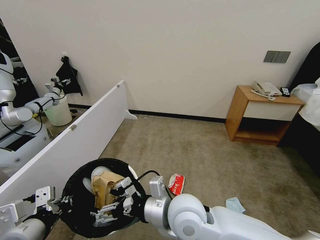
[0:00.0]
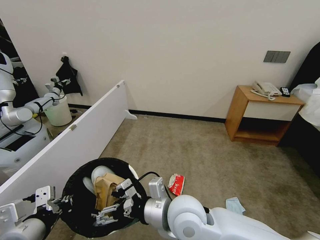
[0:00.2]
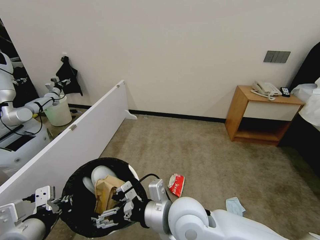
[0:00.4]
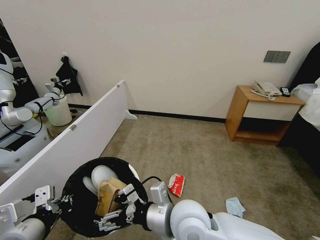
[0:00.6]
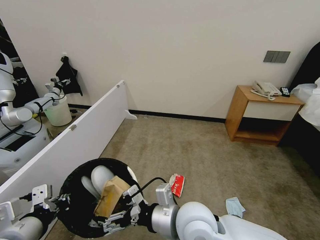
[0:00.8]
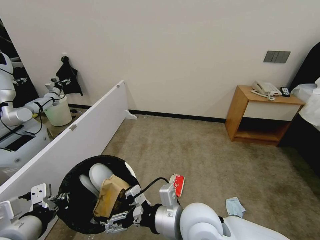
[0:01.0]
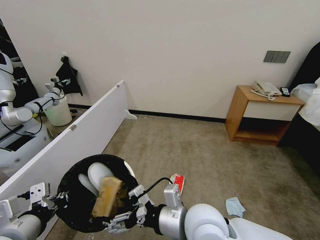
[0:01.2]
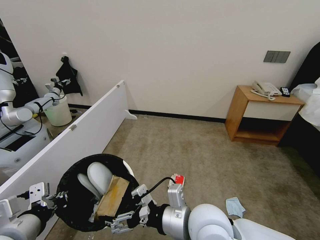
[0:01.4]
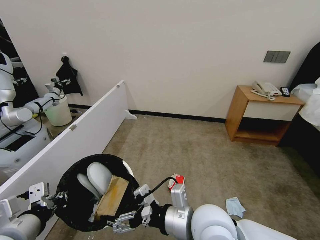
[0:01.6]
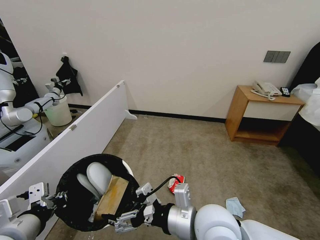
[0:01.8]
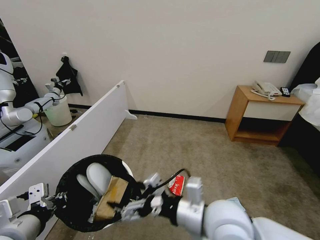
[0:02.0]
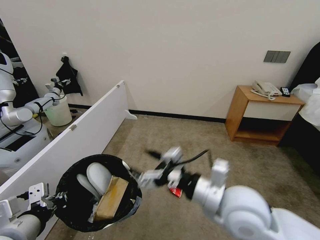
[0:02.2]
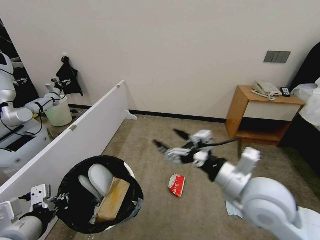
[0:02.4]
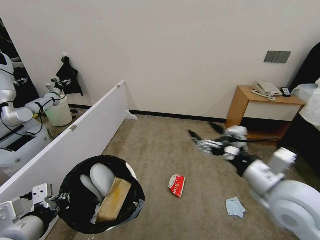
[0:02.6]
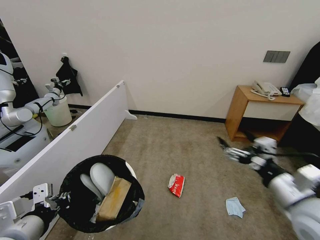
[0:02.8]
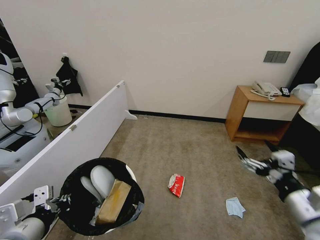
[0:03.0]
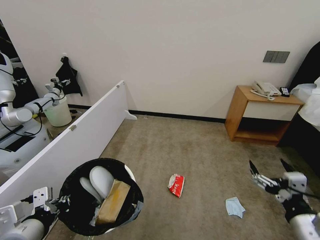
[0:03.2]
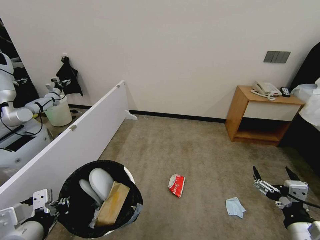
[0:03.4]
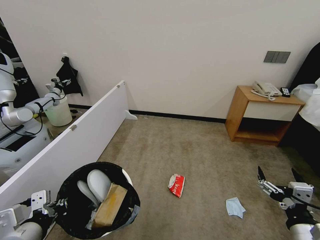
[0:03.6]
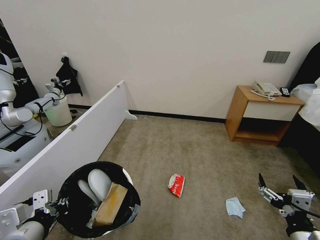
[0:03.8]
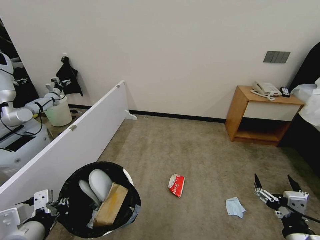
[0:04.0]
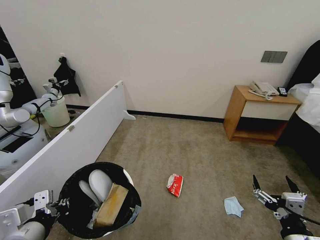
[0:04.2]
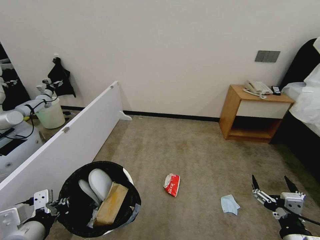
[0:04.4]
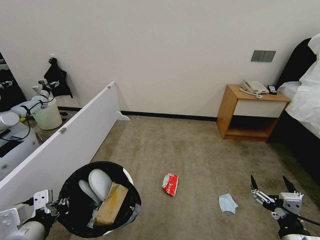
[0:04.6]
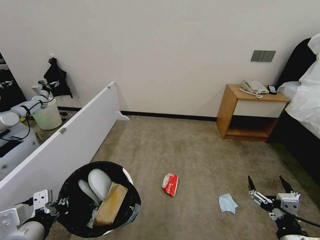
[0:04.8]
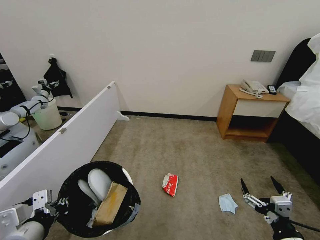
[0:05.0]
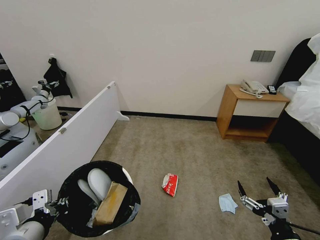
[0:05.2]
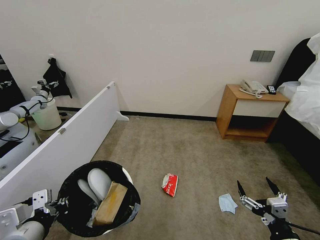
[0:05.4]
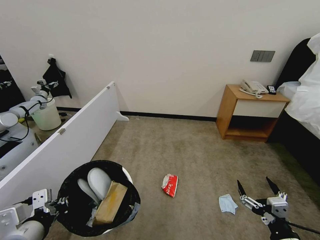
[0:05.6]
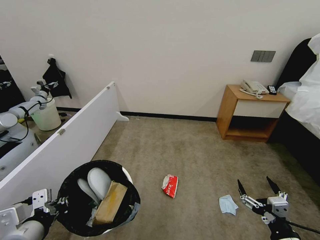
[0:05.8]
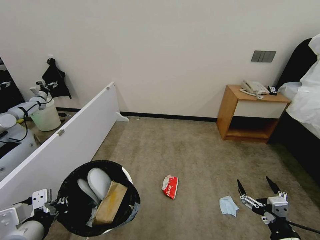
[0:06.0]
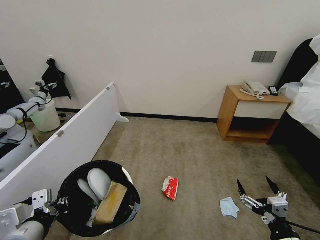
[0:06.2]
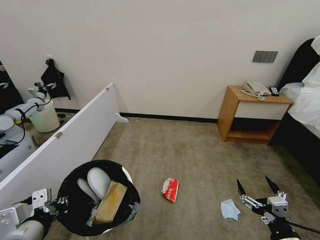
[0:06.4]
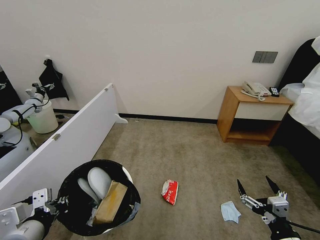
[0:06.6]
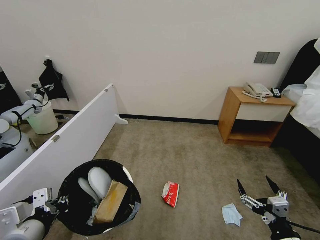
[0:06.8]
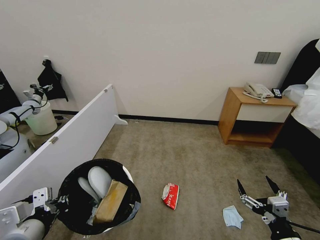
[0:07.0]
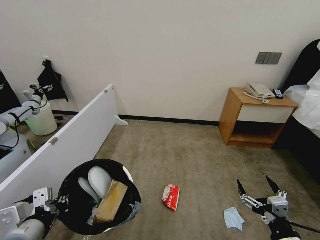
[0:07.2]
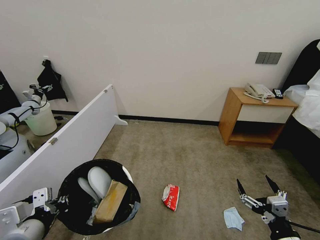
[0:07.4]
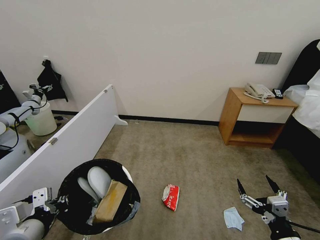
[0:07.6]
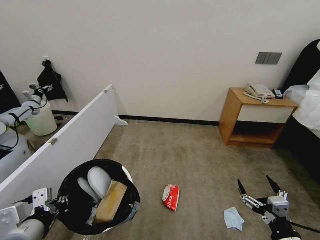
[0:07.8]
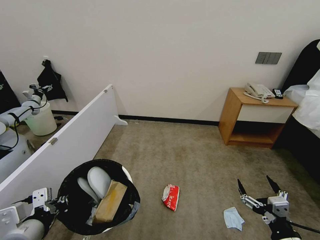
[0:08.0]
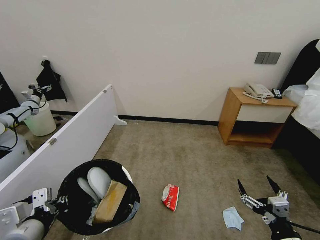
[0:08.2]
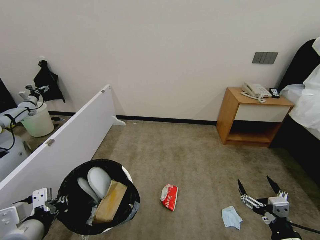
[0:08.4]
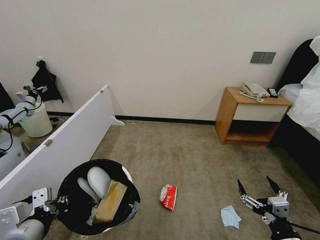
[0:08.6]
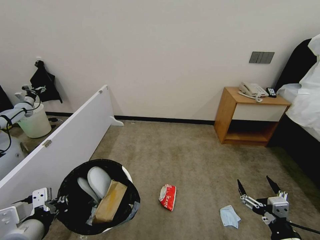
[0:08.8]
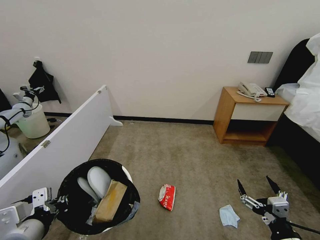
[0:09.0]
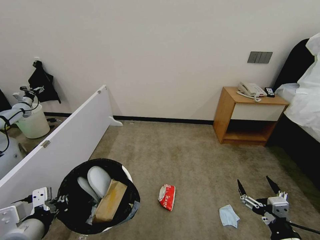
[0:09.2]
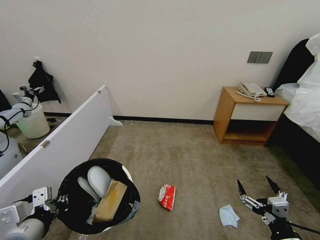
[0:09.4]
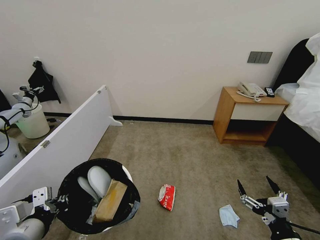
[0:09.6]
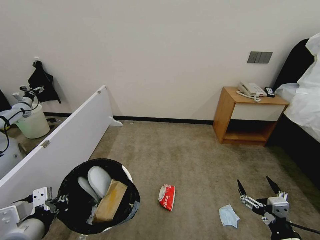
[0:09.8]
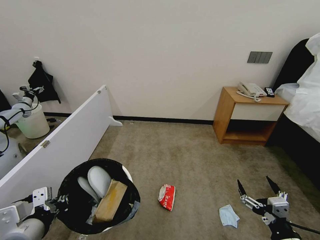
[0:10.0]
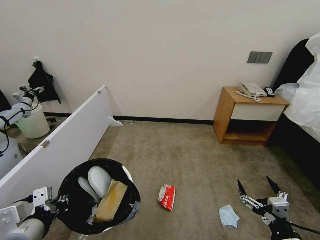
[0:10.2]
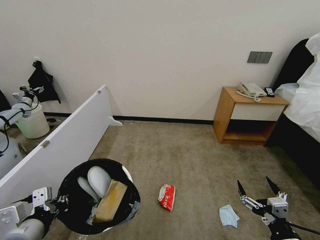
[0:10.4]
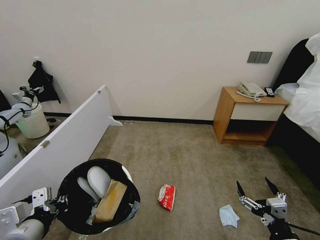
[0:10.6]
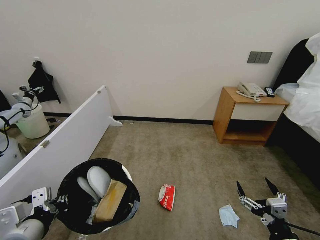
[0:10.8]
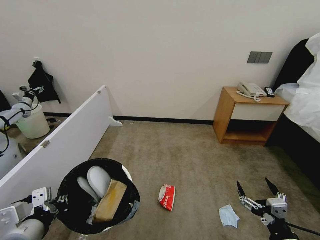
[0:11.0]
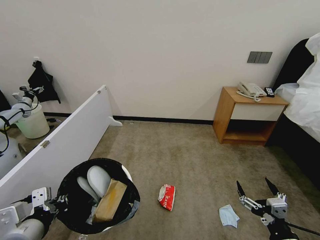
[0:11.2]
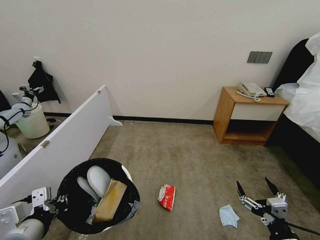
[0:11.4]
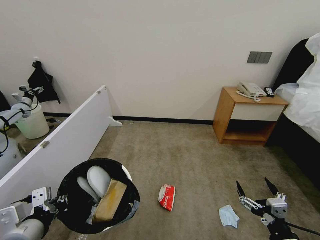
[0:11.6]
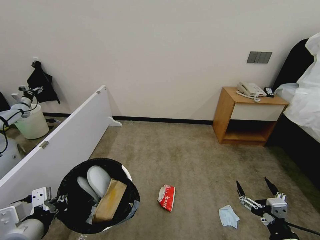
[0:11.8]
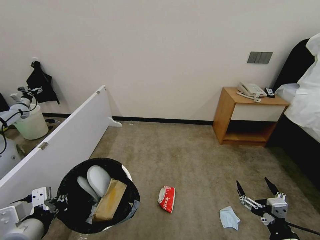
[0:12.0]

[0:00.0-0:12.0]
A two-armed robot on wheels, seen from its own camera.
Task of the whole recording: Pick up the trash bin, then pick up the garbage from the floor and place it into the trash bin.
0:00.0 to 0:01.6: The right gripper changes place by some 5 cm.
0:01.6 to 0:03.0: The right gripper goes some 25 cm to the right.
0:03.0 to 0:04.4: The right gripper goes roughly 10 cm downward and backward.
0:04.4 to 0:06.0: The grippers make only small movements.
0:06.0 to 0:12.0: Both grippers stay about where they are.

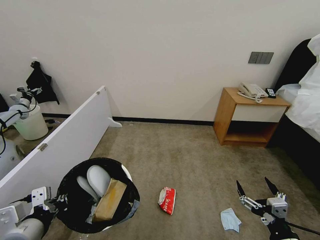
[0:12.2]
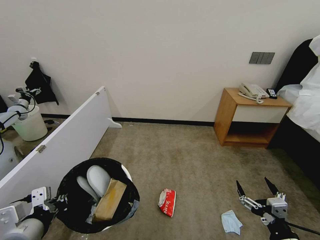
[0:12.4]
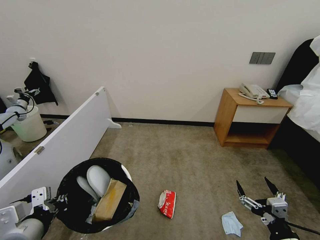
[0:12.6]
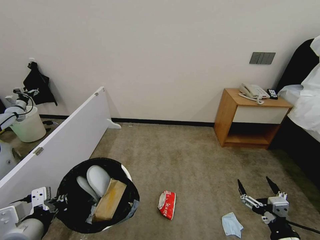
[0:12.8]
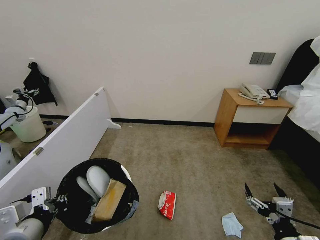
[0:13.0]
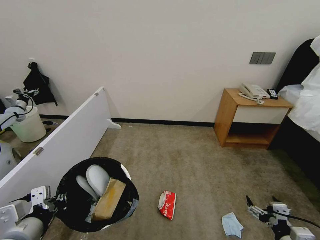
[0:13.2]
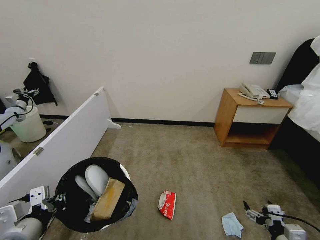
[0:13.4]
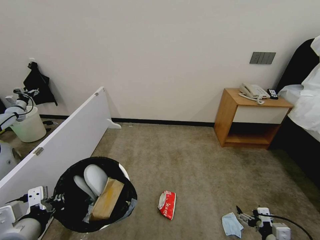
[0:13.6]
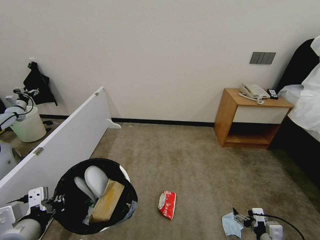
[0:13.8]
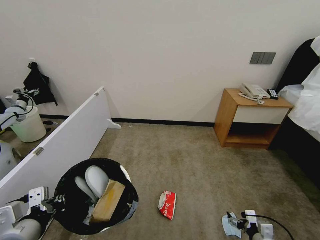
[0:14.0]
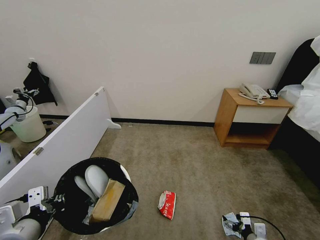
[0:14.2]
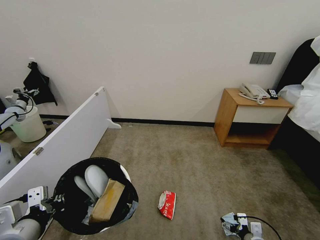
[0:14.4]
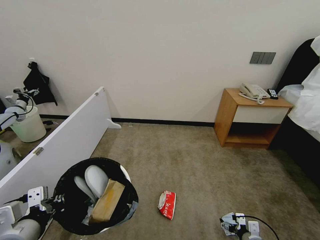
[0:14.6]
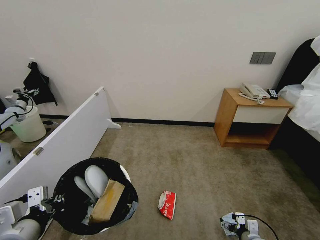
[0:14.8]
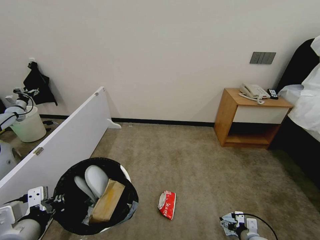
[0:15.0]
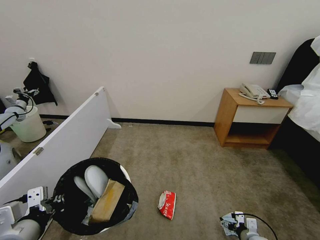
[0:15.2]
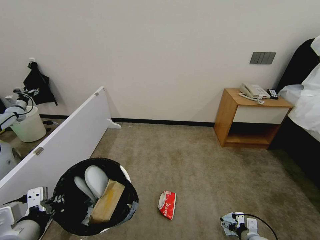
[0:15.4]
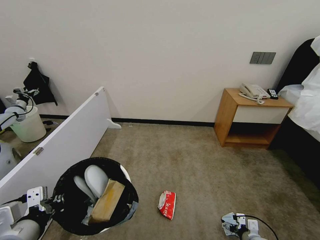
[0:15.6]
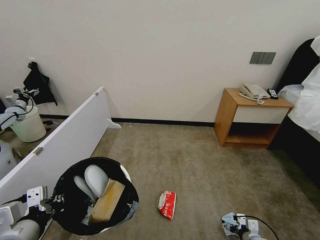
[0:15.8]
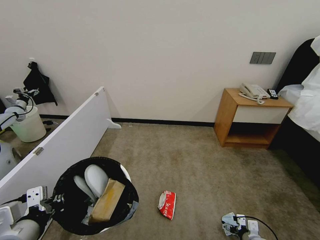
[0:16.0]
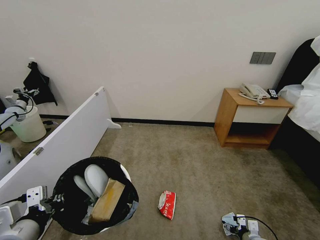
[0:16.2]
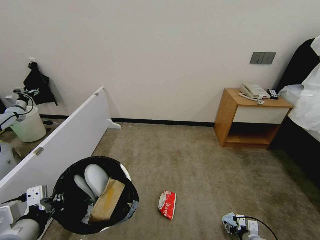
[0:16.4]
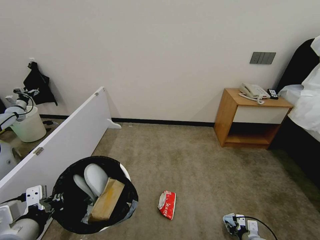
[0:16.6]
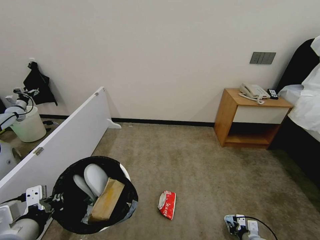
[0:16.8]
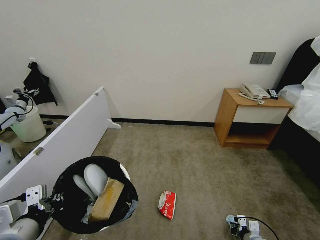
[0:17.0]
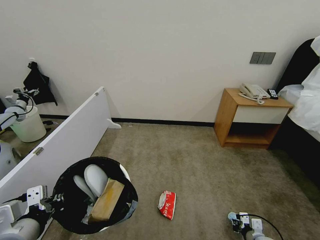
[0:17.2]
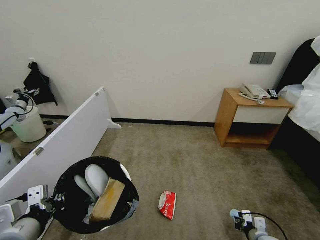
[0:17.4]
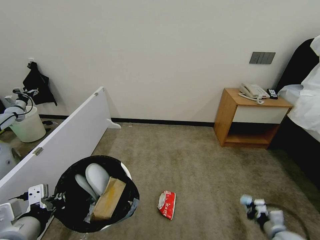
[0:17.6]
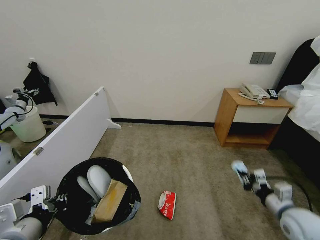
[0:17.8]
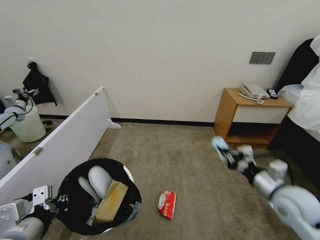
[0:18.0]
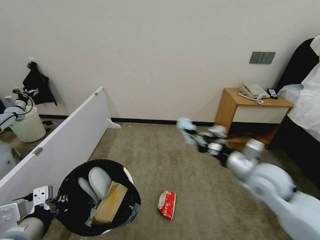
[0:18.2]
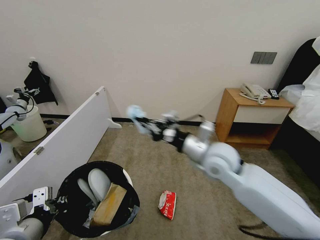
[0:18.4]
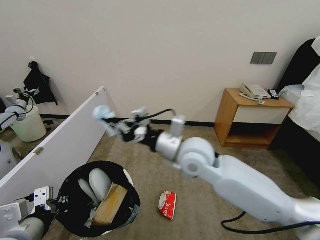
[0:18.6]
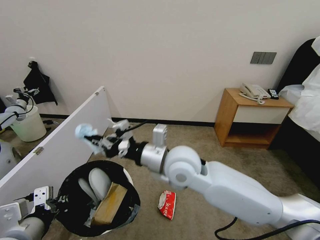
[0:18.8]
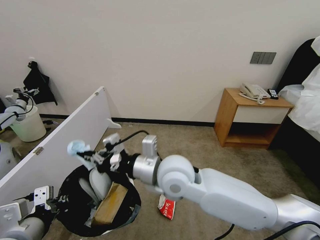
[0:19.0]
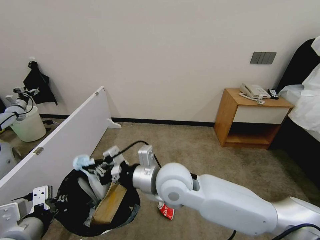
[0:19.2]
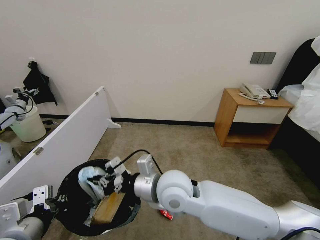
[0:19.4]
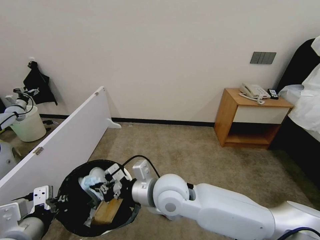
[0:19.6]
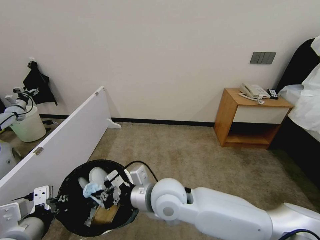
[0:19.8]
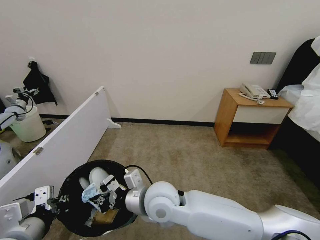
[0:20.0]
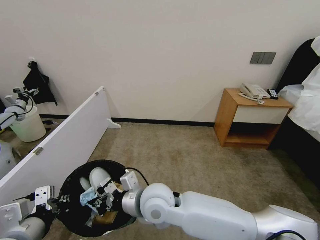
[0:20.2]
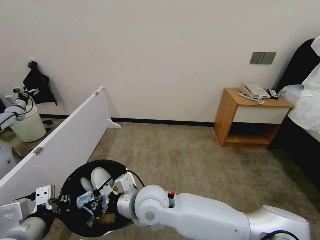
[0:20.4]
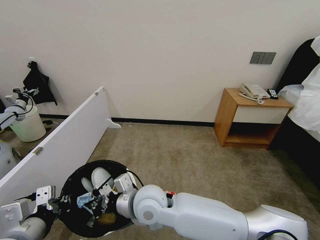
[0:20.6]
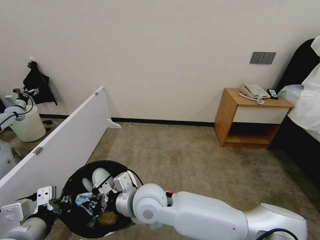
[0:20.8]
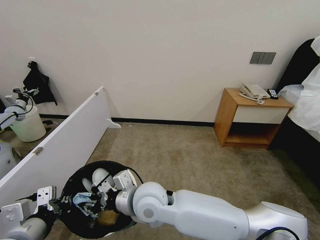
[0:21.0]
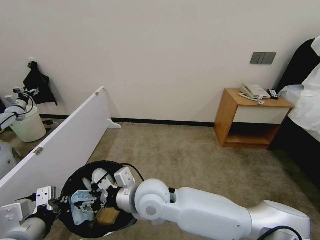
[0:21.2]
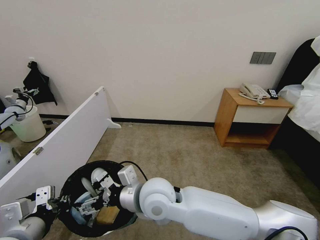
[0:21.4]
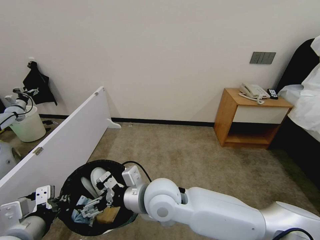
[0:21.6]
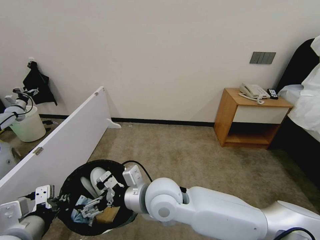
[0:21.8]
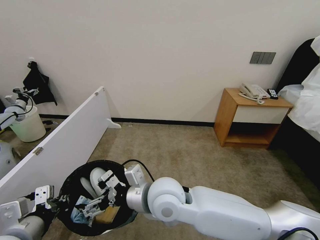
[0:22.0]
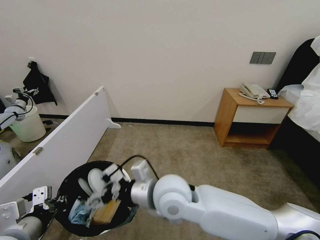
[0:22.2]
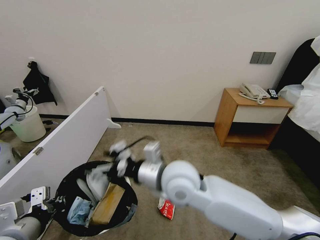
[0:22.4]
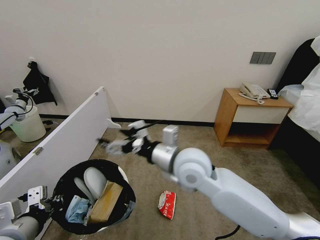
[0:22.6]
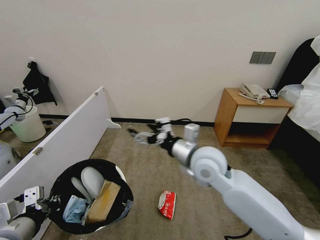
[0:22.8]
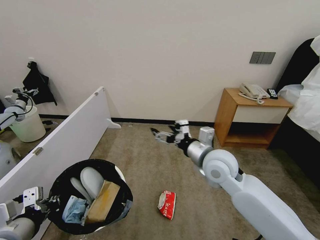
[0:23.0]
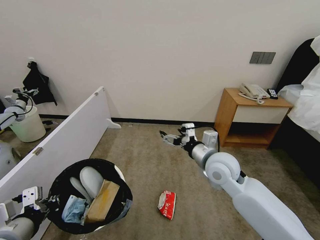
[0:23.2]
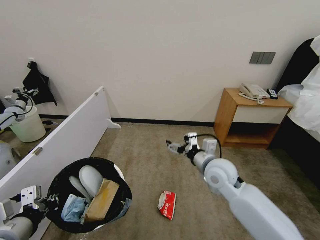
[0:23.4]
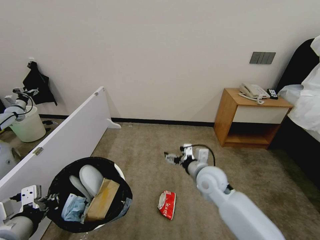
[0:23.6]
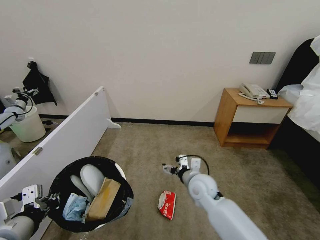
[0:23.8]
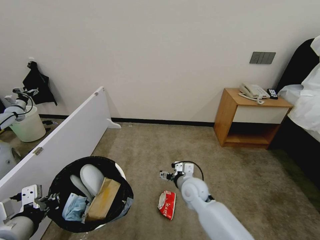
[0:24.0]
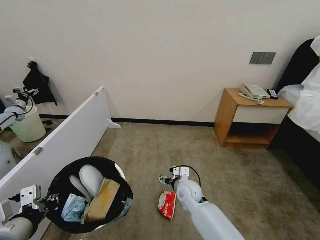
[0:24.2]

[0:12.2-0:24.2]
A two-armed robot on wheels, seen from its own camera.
Task of the whole recording: Pick up the trash bin, then pick up the garbage from the floor and place it into the trash bin.
0:12.2 to 0:13.8: The right gripper moves downward and forward, some 15 cm.
0:13.8 to 0:15.2: The right gripper heads downward and forward, covering some 10 cm.
0:15.2 to 0:16.6: The right gripper closes its fingers.
0:16.6 to 0:18.2: The right gripper heads upward, covering approximately 35 cm, and closes up.
0:18.2 to 0:19.8: The right gripper travels to the left by approximately 25 cm.
0:19.8 to 0:21.2: The right gripper opens.
0:21.2 to 0:22.6: The right gripper is displaced to the right and upward by roughly 15 cm, and opens its fingers.
0:22.6 to 0:24.2: The right gripper shifts approximately 25 cm downward.
